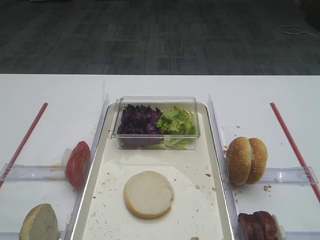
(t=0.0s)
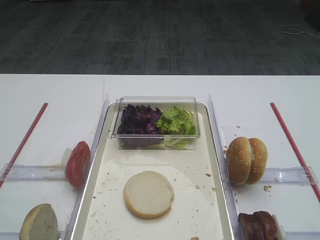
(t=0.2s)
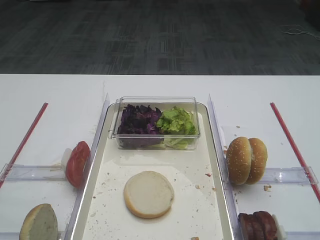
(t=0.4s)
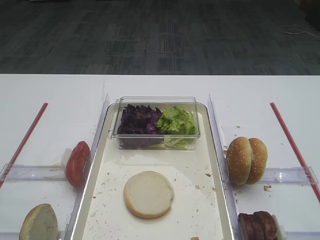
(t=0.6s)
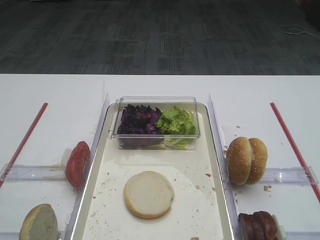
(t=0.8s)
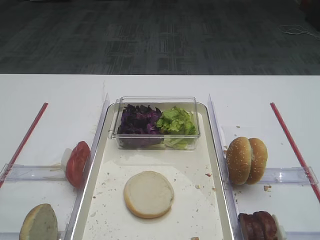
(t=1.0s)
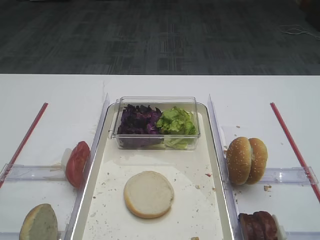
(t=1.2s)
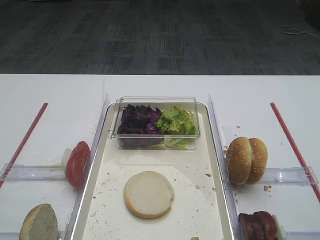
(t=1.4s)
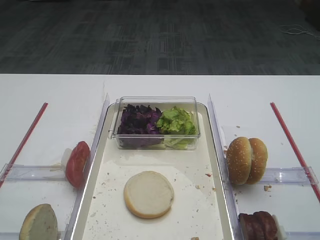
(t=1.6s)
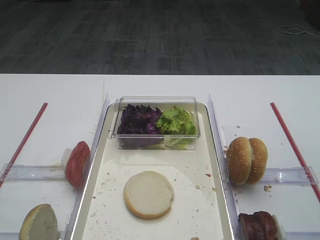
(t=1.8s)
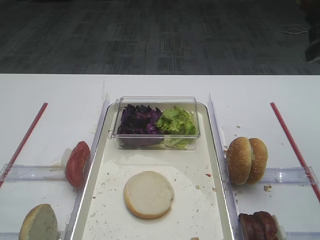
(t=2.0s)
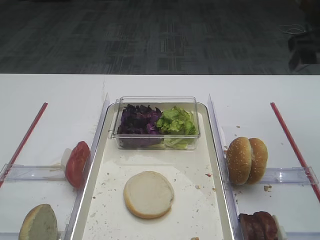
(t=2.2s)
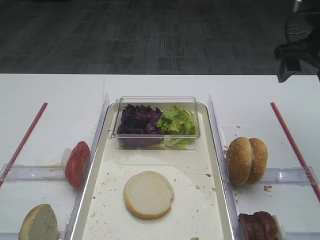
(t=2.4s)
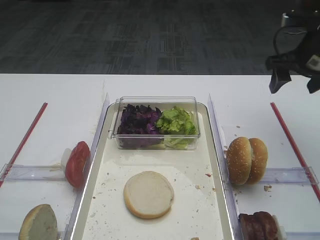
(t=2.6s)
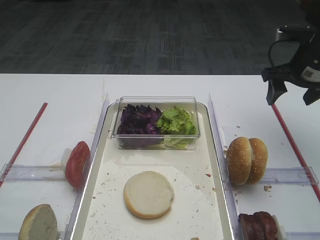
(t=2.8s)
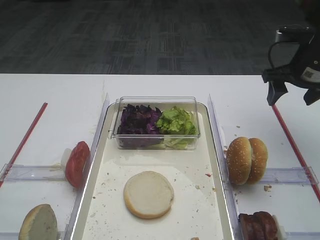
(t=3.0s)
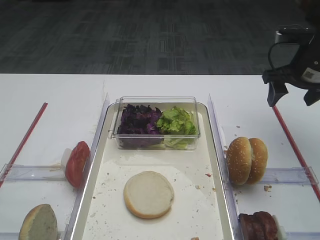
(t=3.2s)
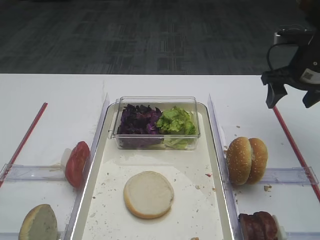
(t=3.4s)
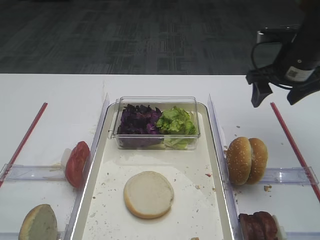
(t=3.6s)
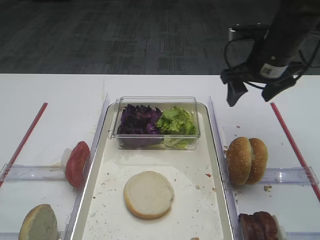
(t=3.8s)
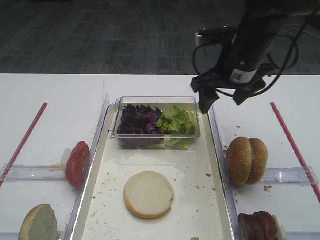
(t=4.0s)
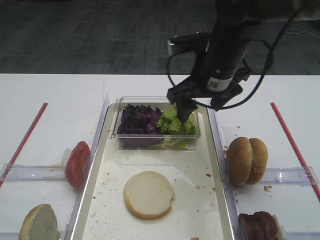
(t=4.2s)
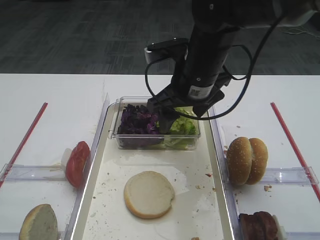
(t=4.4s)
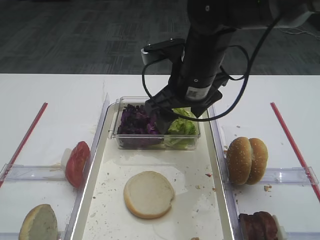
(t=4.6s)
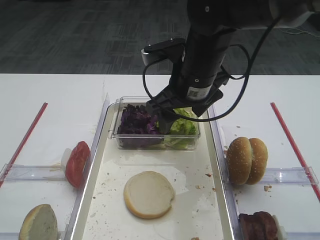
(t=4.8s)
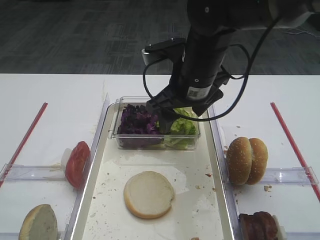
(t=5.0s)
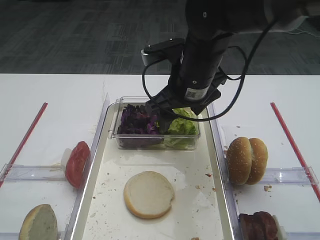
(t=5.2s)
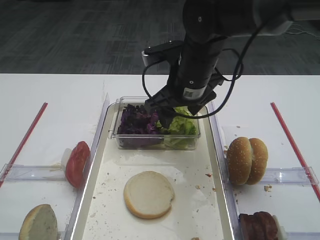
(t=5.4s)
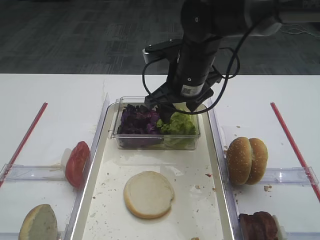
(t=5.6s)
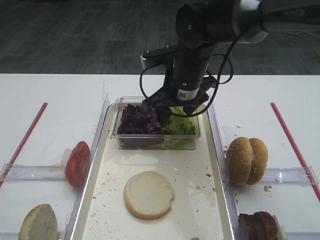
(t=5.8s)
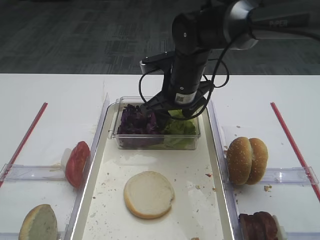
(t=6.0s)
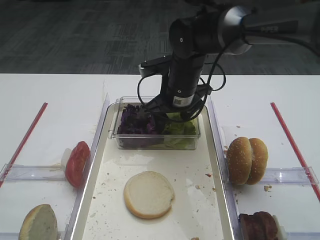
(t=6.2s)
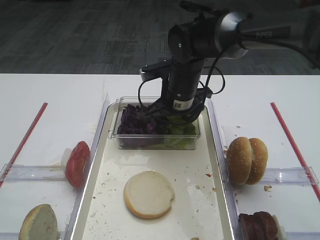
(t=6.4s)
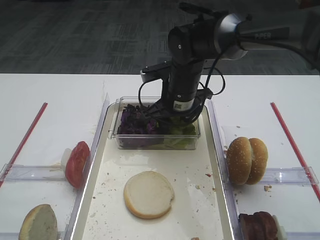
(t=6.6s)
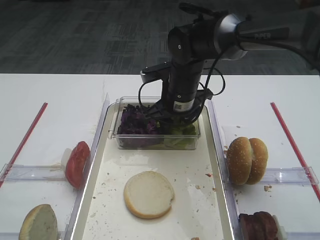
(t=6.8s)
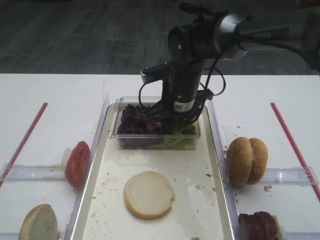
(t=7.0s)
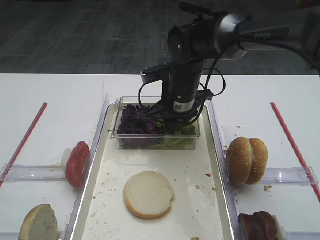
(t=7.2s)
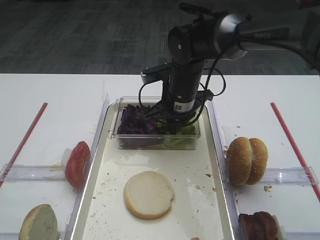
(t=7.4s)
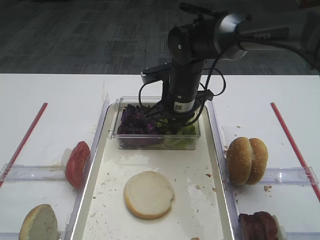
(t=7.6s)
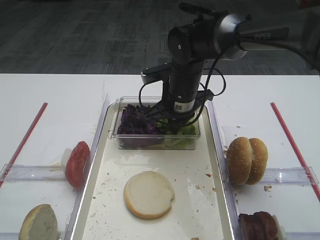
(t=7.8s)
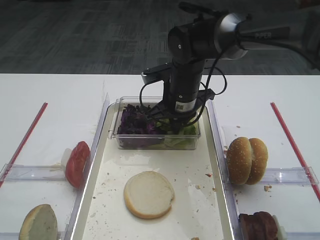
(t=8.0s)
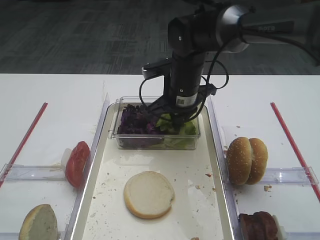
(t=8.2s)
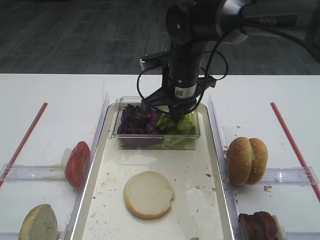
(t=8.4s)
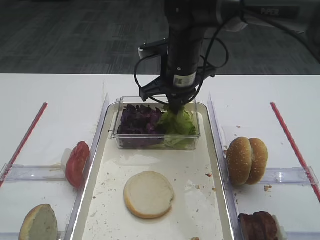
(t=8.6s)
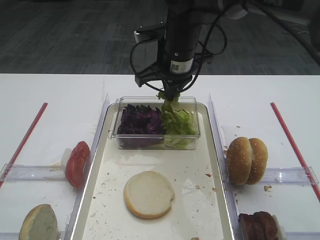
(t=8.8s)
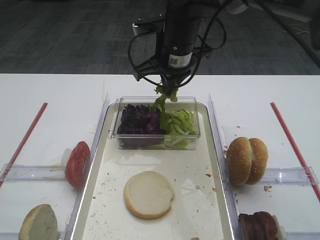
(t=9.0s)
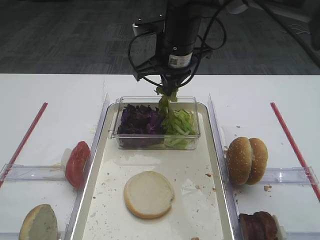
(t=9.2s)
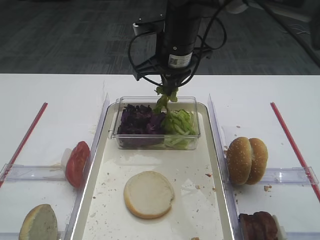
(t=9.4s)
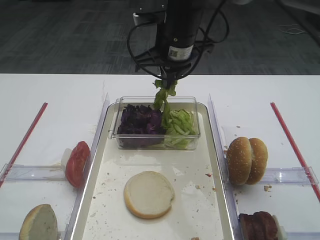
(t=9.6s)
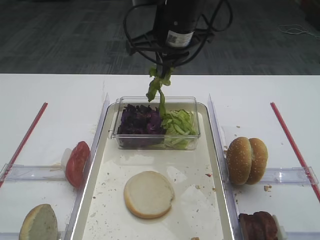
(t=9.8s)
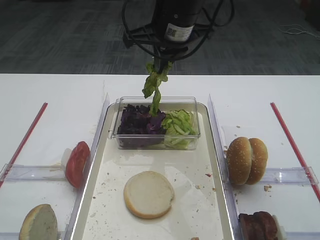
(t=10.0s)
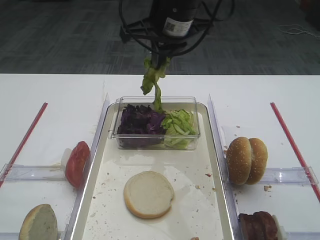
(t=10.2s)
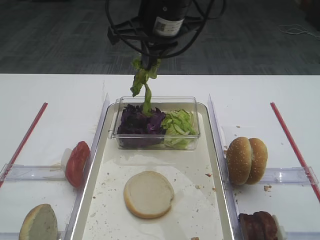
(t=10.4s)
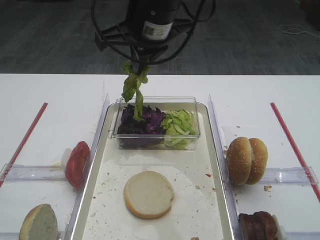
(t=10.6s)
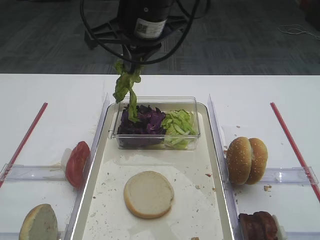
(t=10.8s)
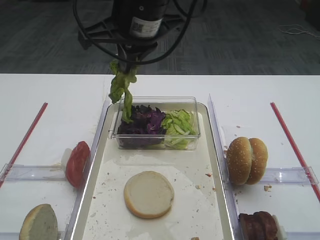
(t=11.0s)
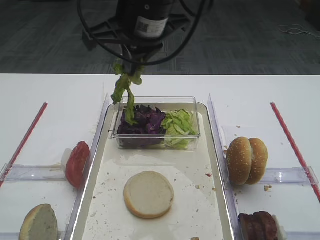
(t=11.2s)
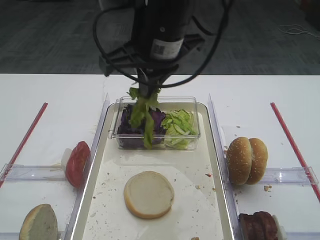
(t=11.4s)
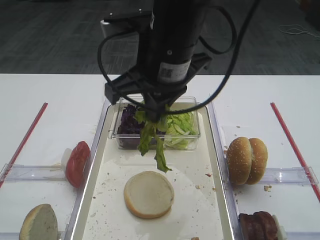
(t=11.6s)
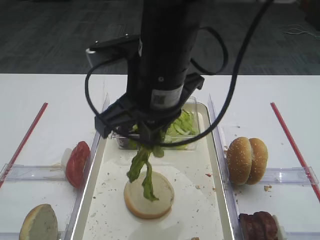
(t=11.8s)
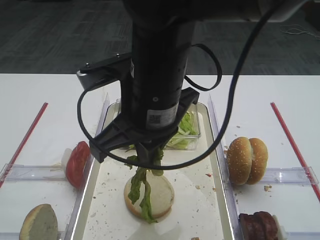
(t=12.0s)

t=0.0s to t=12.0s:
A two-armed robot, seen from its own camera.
Step, t=0.0s to t=9.4s: Pick up the lettuce leaf with the right gripper.
t=1.6s to t=3.0s: The right gripper is displaced forward and downward by about 30 cm.
t=3.0s to t=4.4s: The right gripper moves to the left, about 20 cm.
t=4.4s to t=6.0s: The right gripper shifts some 5 cm forward.
t=6.0s to t=7.6s: The right gripper closes up.
t=7.6s to t=9.0s: The right gripper shifts roughly 10 cm upward.
t=9.0s to t=10.4s: The right gripper moves upward, about 5 cm.
t=10.4s to t=12.0s: The right gripper moves backward, some 15 cm.

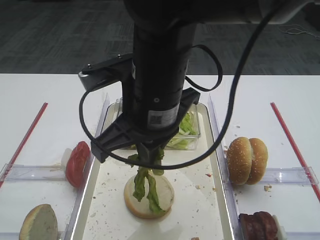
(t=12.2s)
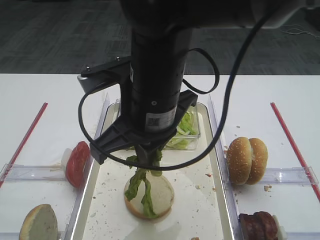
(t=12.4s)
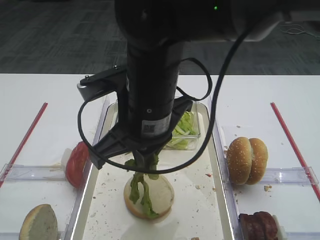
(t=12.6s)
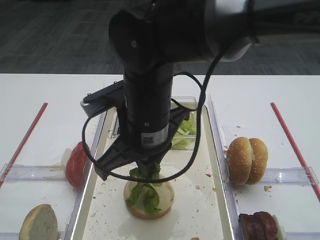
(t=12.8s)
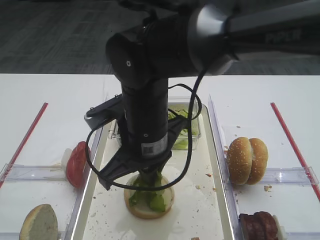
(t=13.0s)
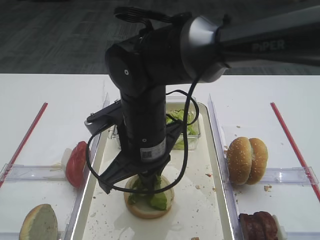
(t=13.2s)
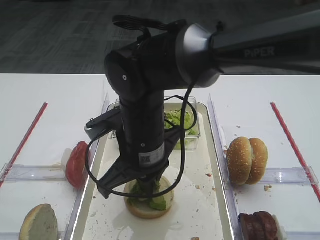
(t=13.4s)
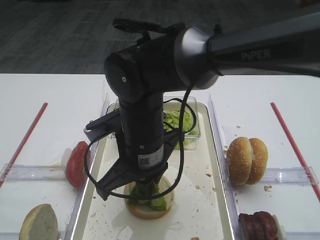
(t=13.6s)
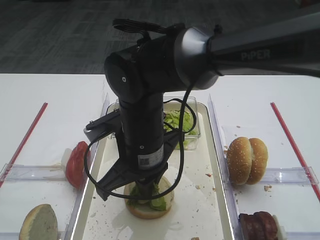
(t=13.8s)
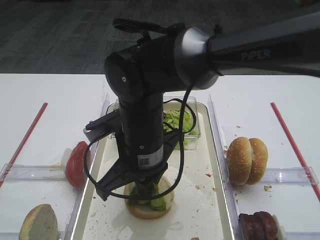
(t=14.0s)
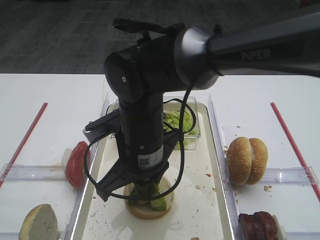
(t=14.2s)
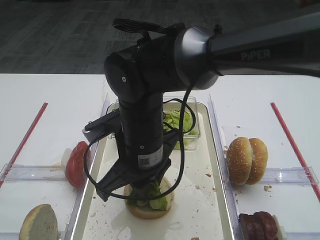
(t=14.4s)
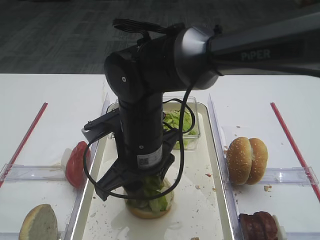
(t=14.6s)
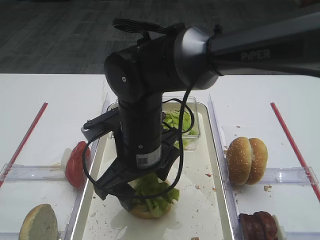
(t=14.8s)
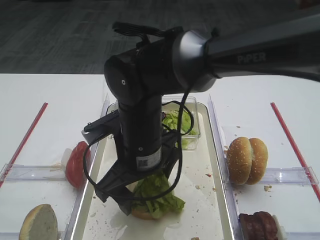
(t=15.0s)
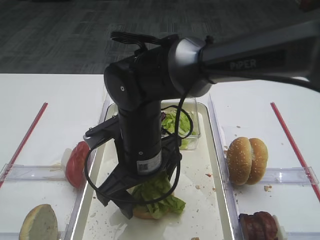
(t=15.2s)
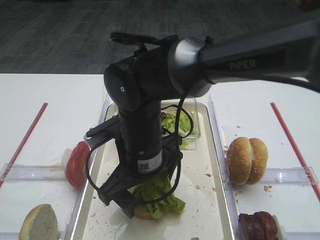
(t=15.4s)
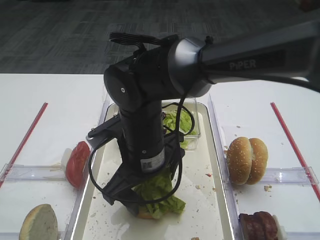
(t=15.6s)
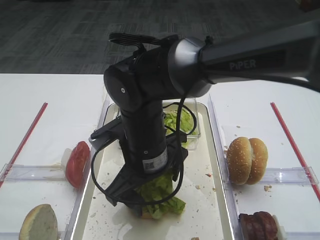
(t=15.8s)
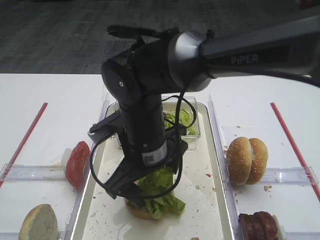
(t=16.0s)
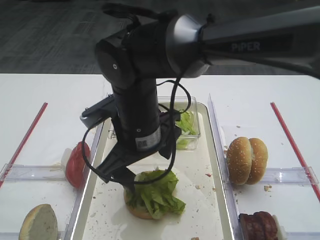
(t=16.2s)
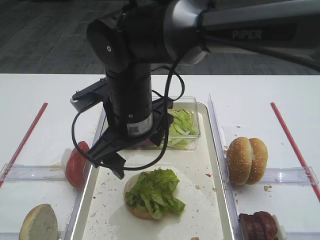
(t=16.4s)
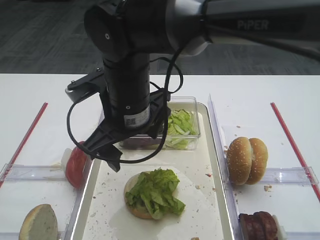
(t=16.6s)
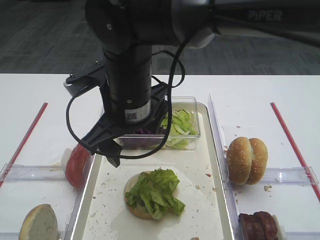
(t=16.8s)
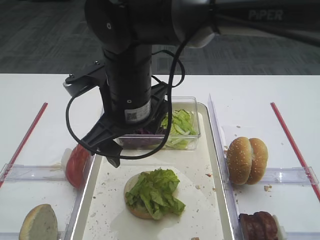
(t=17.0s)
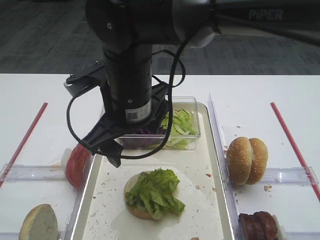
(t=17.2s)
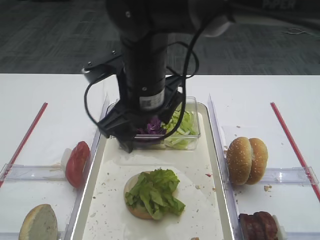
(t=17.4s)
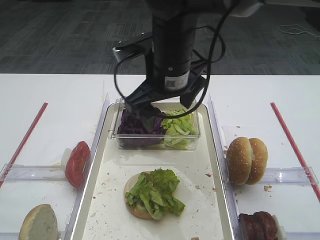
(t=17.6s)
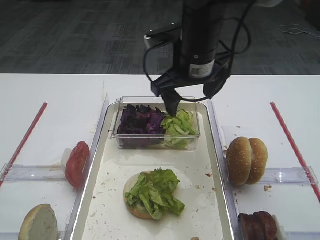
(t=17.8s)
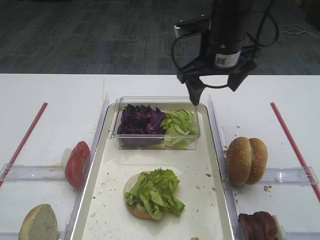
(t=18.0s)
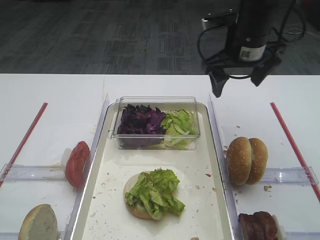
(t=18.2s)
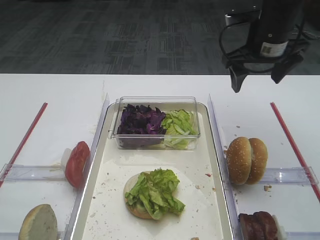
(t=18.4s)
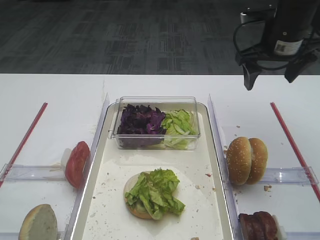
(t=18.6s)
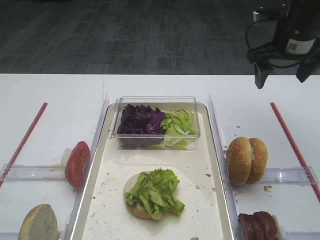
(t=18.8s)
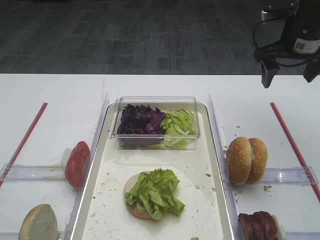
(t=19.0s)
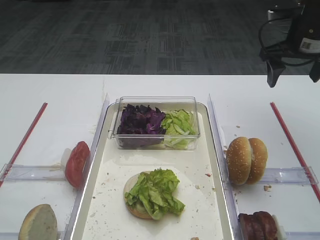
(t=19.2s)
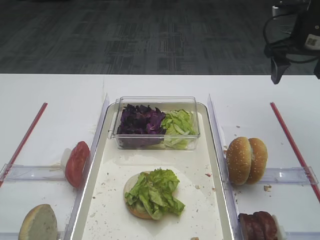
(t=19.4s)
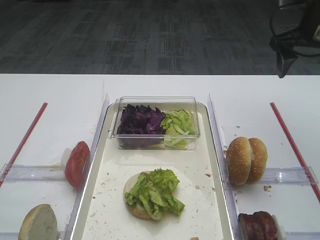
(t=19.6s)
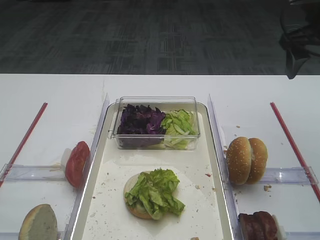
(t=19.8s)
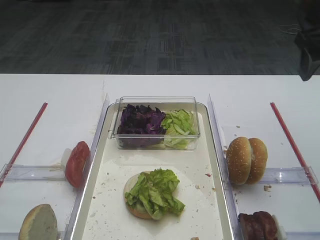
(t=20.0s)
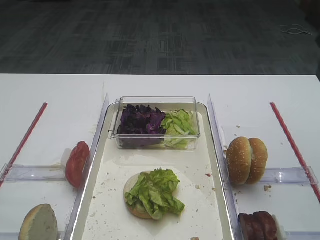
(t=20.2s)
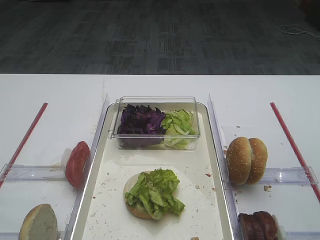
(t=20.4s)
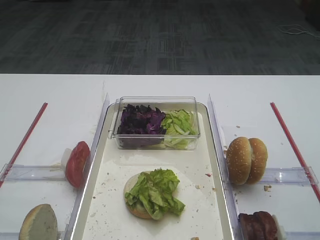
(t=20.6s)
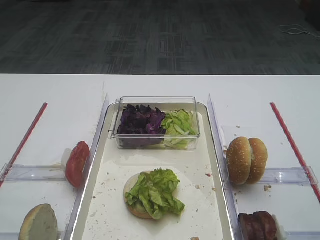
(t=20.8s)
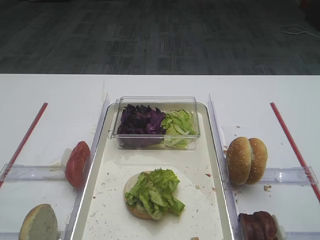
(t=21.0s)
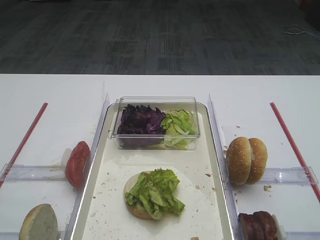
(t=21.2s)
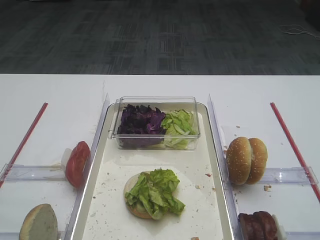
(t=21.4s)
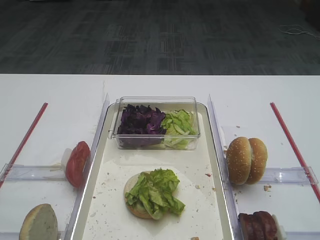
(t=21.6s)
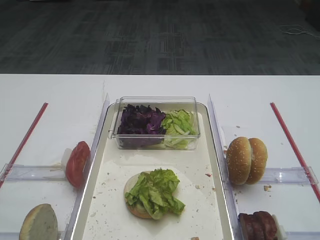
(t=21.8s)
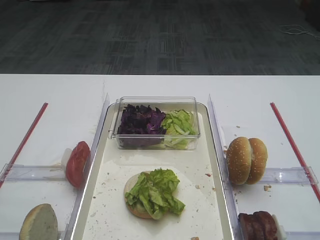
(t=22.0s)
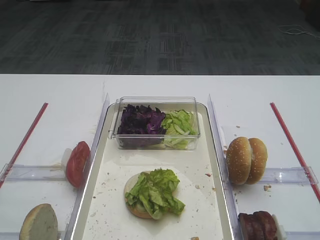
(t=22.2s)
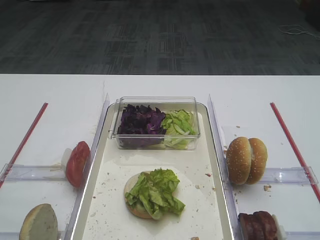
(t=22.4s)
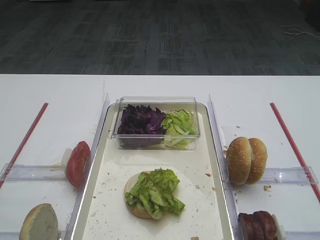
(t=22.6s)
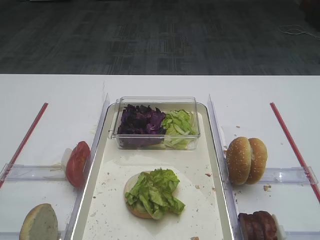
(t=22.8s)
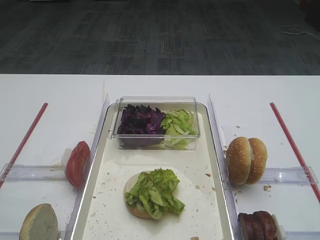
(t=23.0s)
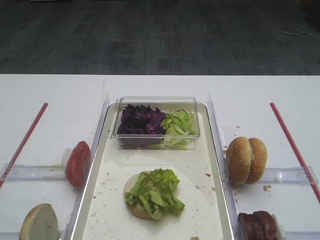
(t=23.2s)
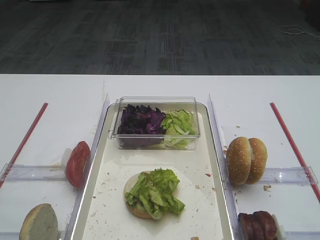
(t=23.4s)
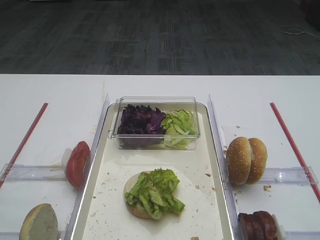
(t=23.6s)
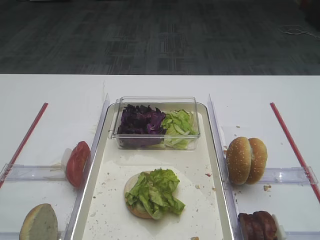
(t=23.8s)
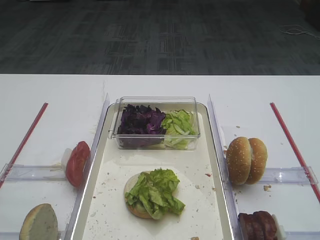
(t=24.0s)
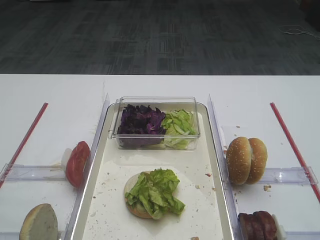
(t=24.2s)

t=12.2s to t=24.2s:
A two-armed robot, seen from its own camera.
Step, t=12.2s to t=16.6s: Place the lettuce leaf on the bread slice with the right gripper.
t=12.2s to t=13.8s: The right gripper is displaced downward by about 10 cm.
t=13.8s to t=15.2s: The right gripper opens its fingers.
t=15.2s to t=16.6s: The right gripper is displaced upward by approximately 5 cm.
t=16.6s to t=18.2s: The right gripper travels to the right and forward by roughly 20 cm.
t=18.2s to t=19.8s: The right gripper is displaced to the right by approximately 15 cm.
t=19.8s to t=21.2s: The right gripper shifts approximately 30 cm backward.
t=22.6s to t=24.2s: Both grippers stay about where they are.
